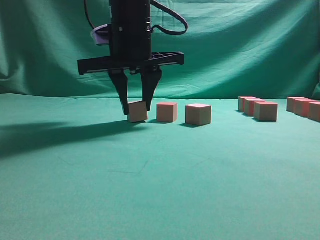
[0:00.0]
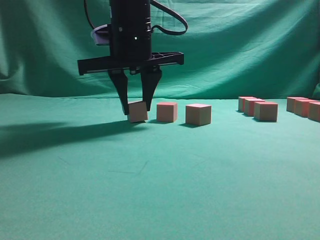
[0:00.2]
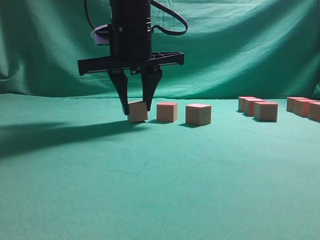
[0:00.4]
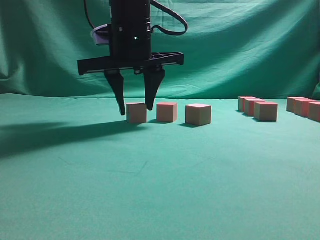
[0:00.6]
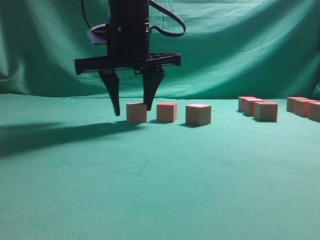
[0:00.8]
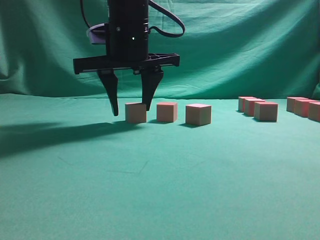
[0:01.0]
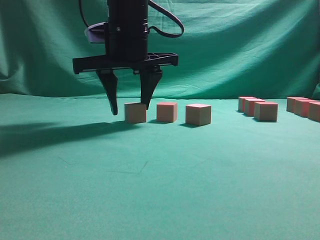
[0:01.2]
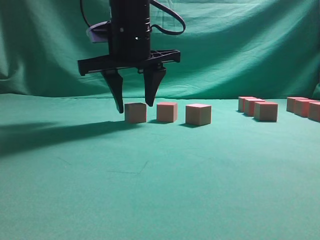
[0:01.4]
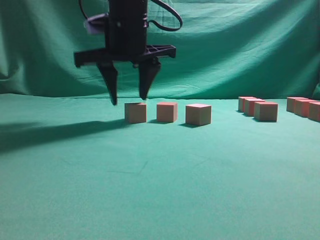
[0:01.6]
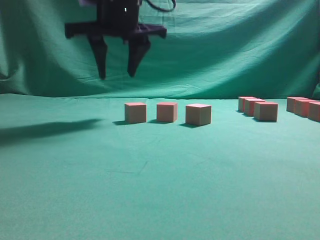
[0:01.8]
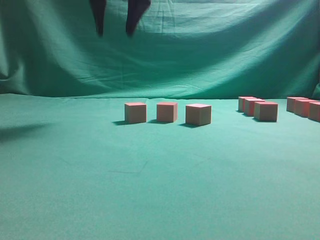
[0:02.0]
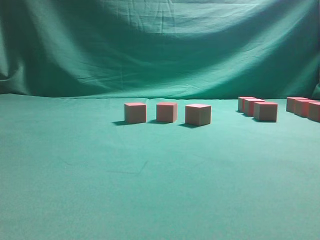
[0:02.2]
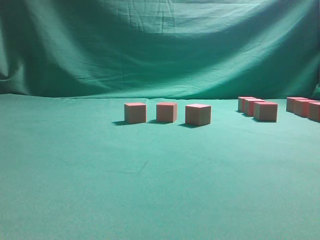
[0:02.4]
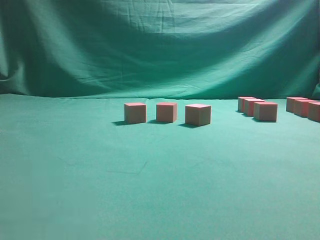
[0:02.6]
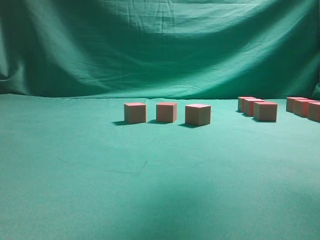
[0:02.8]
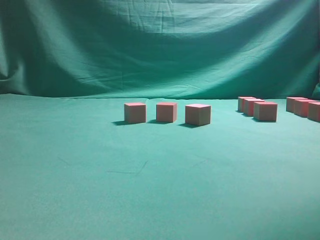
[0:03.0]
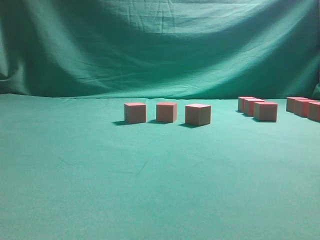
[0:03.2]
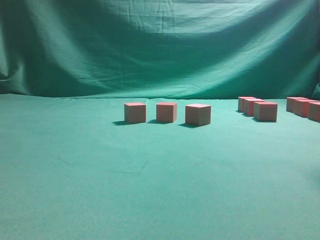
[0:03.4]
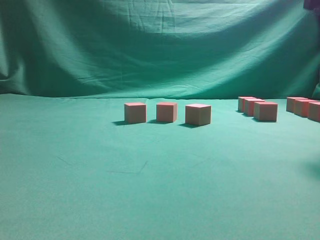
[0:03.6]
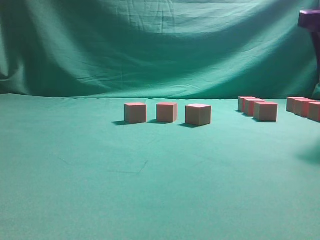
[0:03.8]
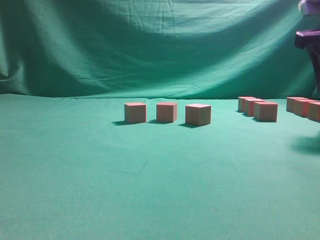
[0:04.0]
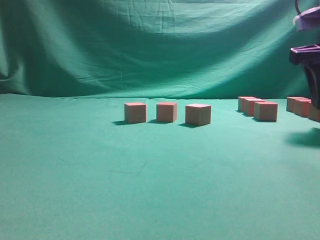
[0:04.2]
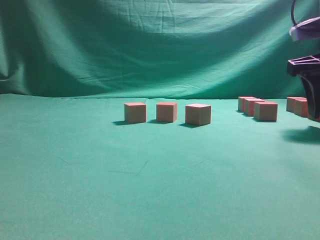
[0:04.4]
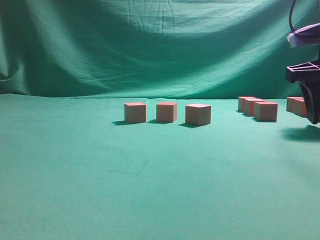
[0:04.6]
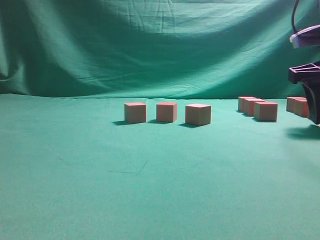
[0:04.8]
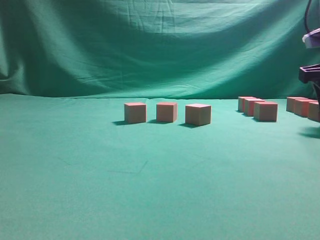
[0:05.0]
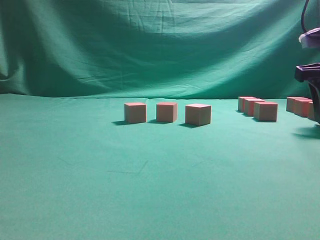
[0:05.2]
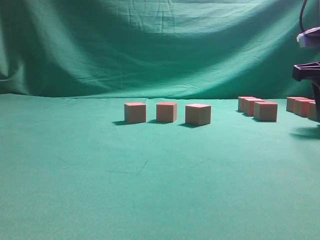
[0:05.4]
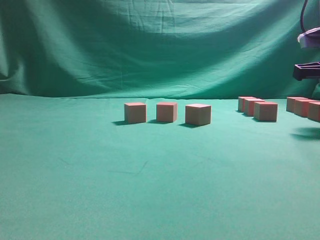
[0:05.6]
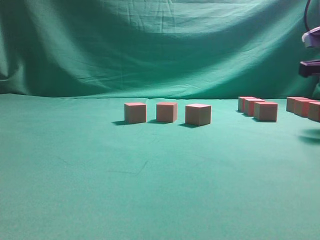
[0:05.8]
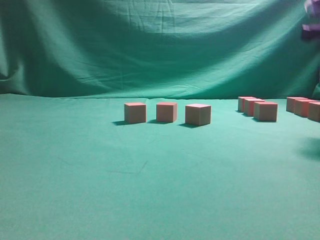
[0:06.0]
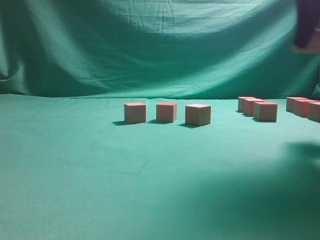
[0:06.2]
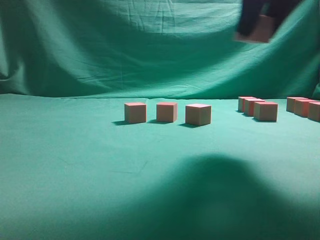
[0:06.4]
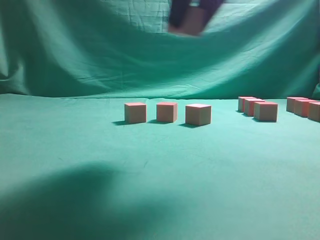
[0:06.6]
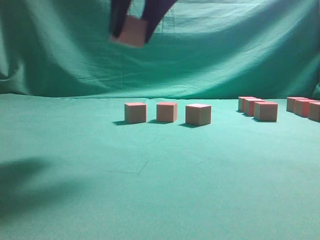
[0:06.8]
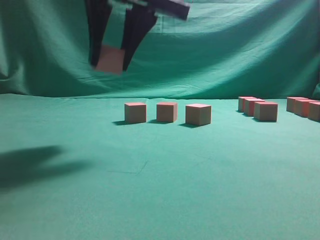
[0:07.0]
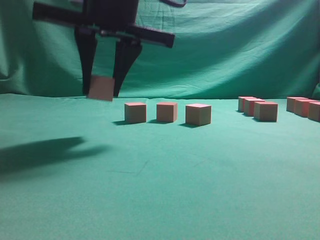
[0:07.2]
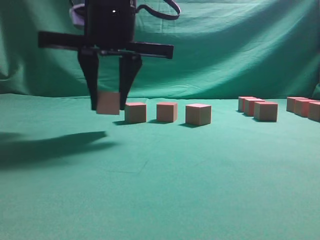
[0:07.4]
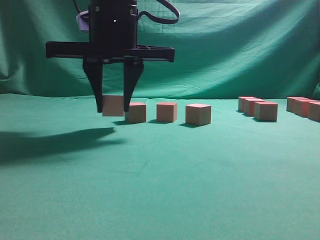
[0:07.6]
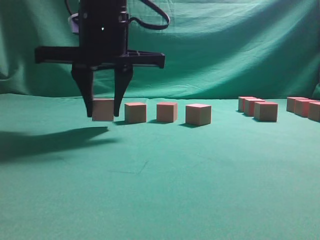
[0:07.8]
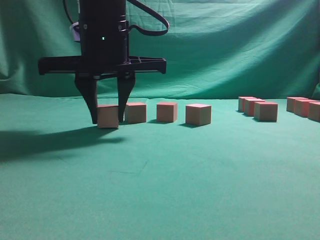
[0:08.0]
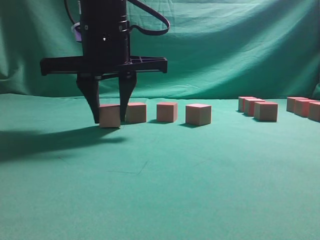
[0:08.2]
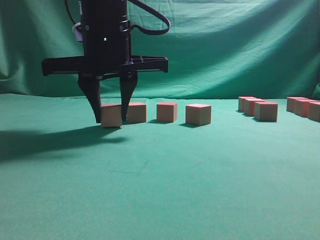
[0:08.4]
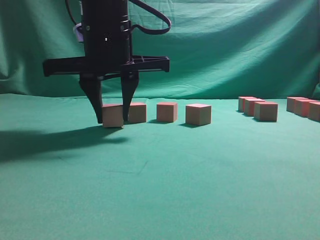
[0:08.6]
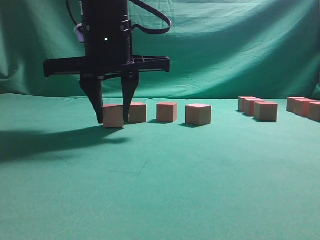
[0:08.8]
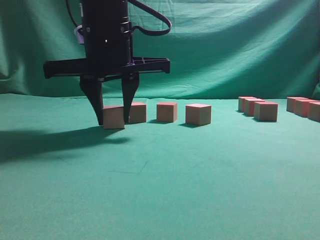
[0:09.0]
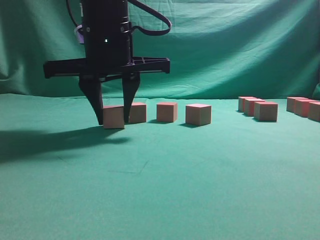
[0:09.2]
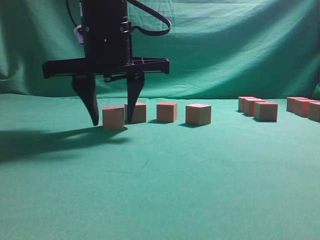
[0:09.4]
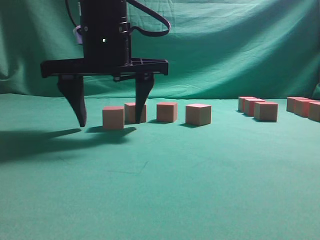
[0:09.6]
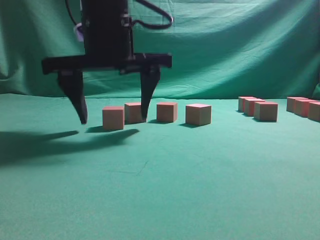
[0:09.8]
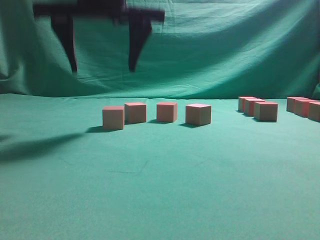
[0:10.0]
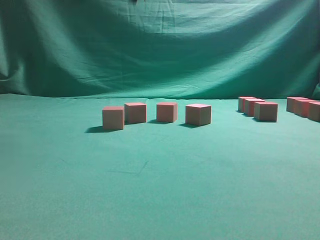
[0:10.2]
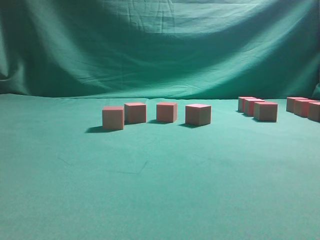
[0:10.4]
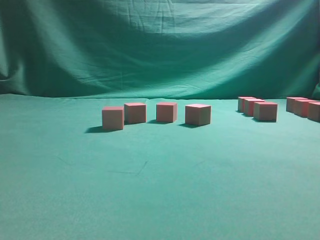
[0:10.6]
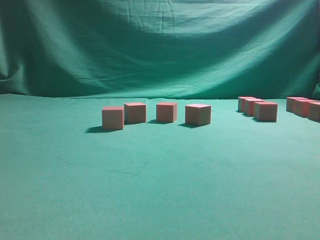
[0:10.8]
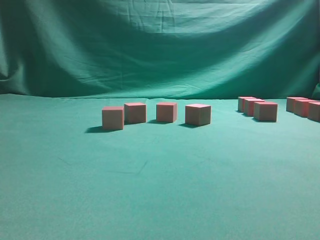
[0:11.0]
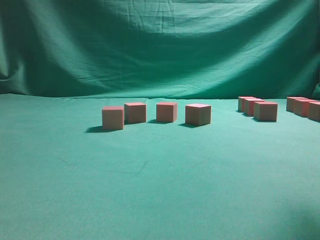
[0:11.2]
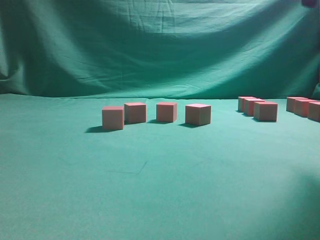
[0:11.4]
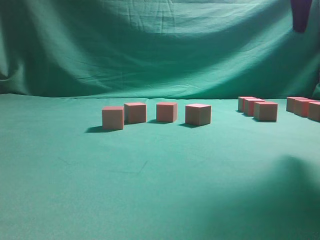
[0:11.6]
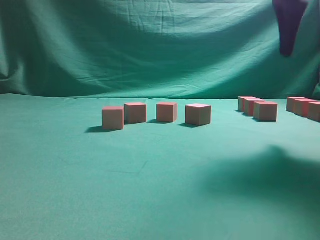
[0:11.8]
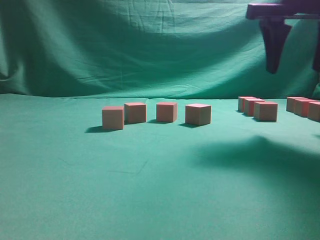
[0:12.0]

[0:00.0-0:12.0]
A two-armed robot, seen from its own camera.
Task of the whole recording: pick up the multiple cubes in two columns one by one and place them in another position on the table.
Step, 0:02.0 to 0:05.6: Pick up the block on the table.
Step, 0:06.0 to 0:09.8: Place the block at the correct position to assemble the letter S.
0:00.0 to 0:01.6: The grippers move only a little.
0:01.6 to 0:03.0: The right gripper travels to the right and upward by some 30 cm.
0:03.0 to 0:04.4: The right gripper moves downward, about 15 cm.
0:04.4 to 0:06.0: The right gripper heads upward, covering roughly 5 cm, and closes up.
0:06.0 to 0:07.6: The right gripper is displaced to the left by some 30 cm.
0:07.6 to 0:09.0: The grippers stay close to where they were, moving slightly.
0:09.0 to 0:10.4: The right gripper is displaced upward by roughly 25 cm, and opens its fingers.
0:10.4 to 0:12.0: The right gripper travels to the right and downward by about 25 cm.

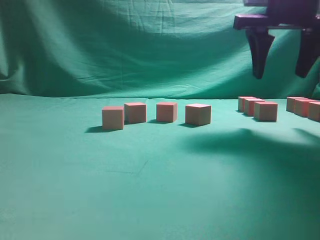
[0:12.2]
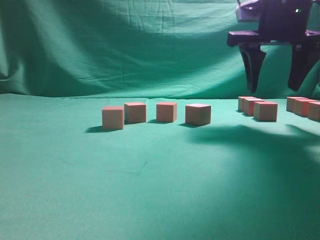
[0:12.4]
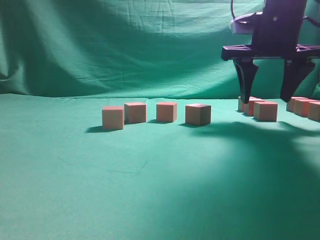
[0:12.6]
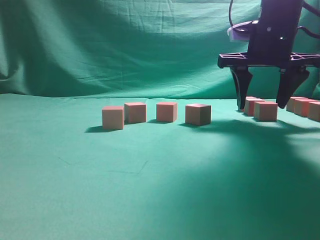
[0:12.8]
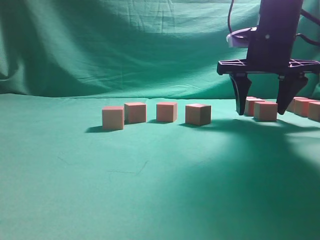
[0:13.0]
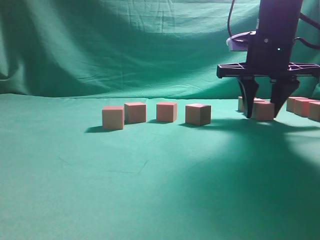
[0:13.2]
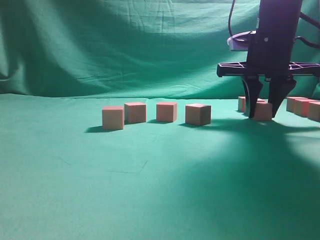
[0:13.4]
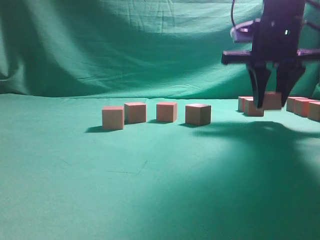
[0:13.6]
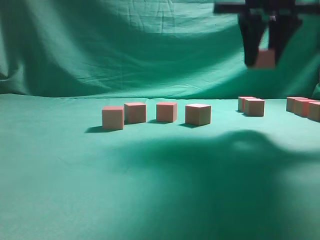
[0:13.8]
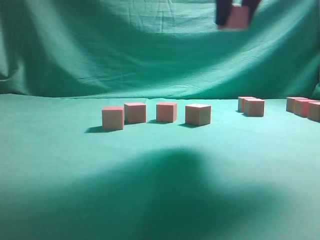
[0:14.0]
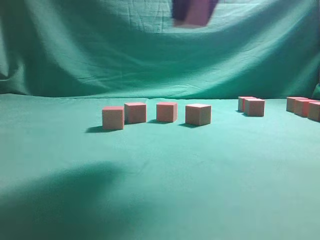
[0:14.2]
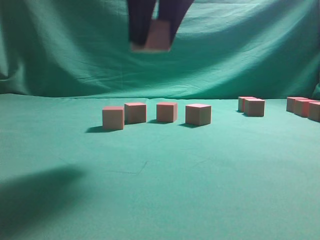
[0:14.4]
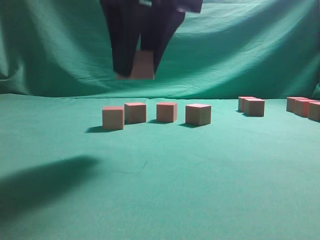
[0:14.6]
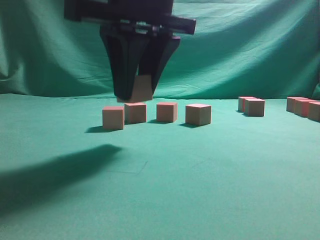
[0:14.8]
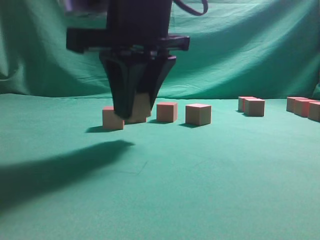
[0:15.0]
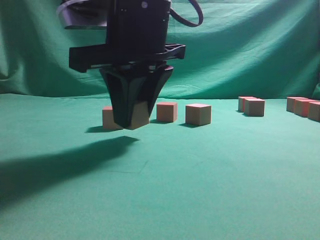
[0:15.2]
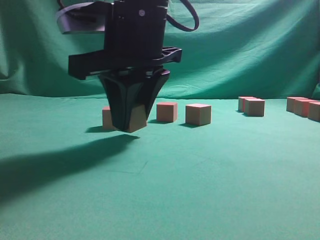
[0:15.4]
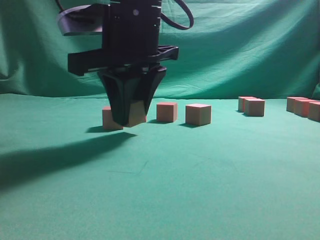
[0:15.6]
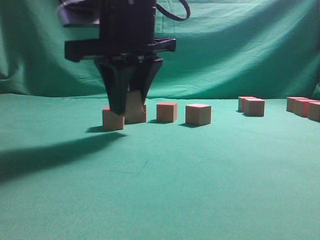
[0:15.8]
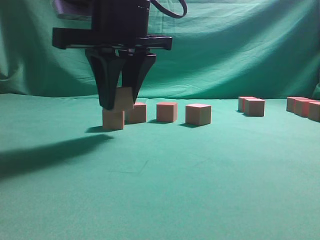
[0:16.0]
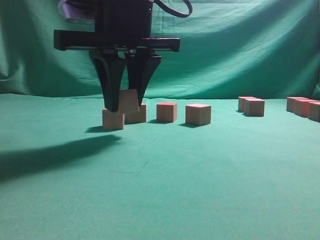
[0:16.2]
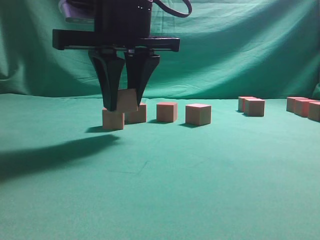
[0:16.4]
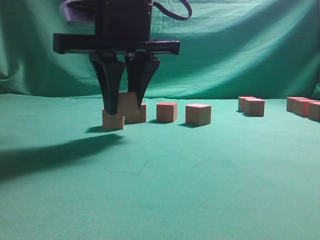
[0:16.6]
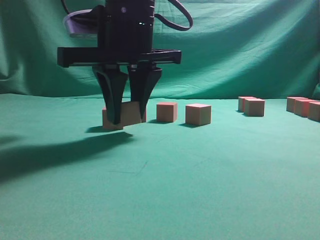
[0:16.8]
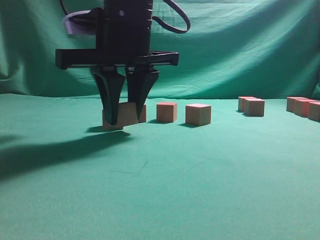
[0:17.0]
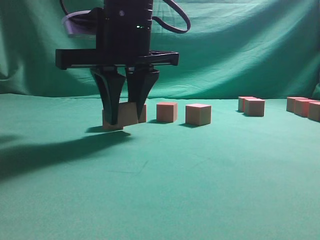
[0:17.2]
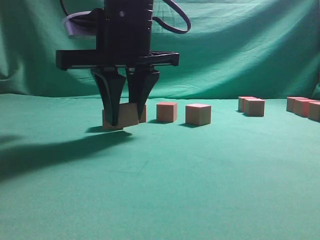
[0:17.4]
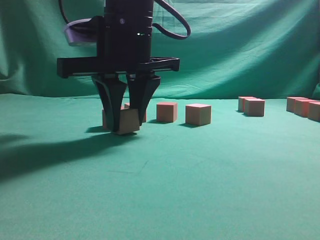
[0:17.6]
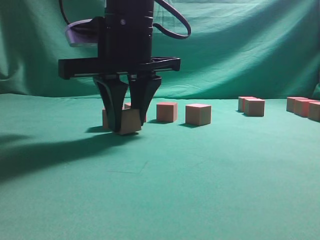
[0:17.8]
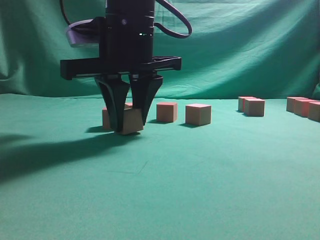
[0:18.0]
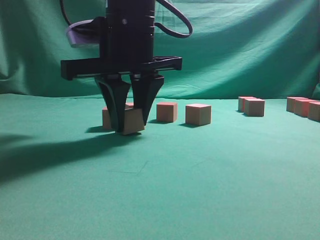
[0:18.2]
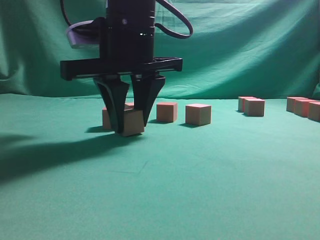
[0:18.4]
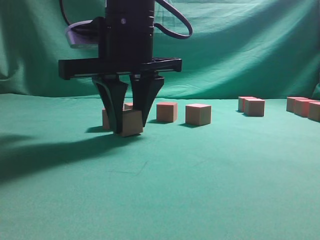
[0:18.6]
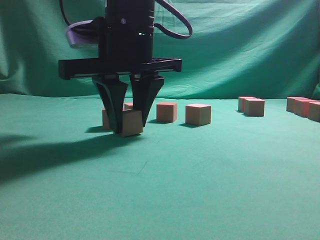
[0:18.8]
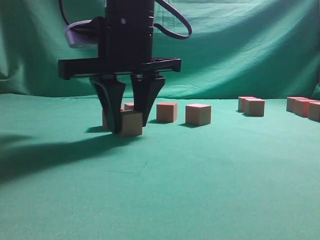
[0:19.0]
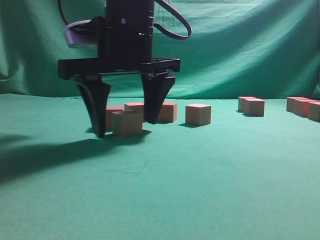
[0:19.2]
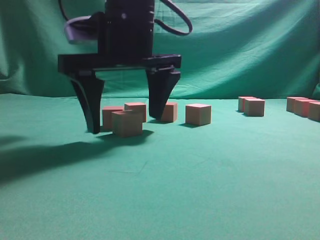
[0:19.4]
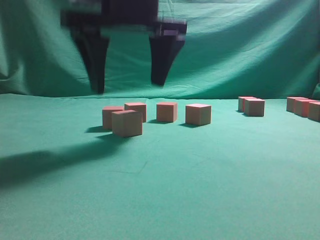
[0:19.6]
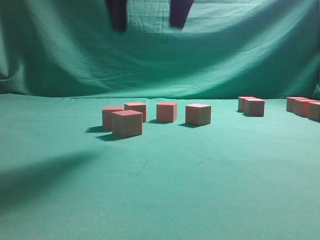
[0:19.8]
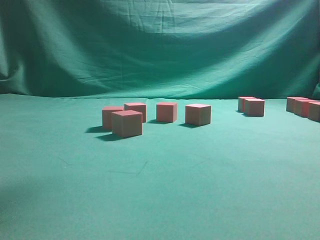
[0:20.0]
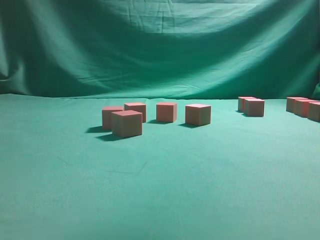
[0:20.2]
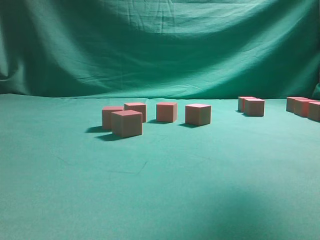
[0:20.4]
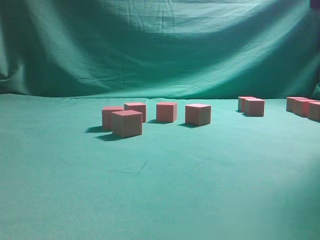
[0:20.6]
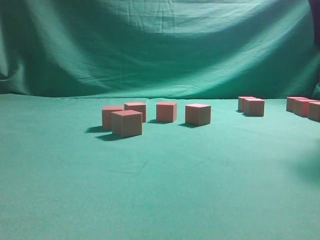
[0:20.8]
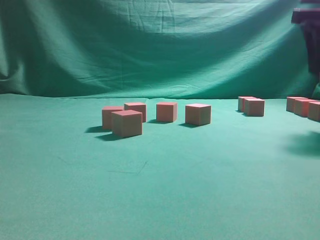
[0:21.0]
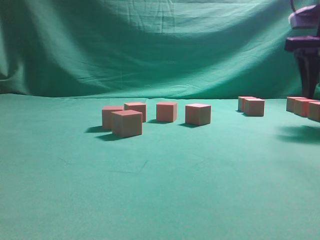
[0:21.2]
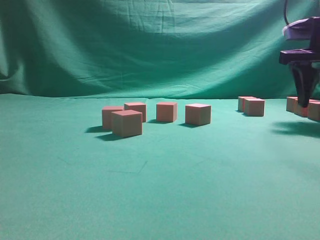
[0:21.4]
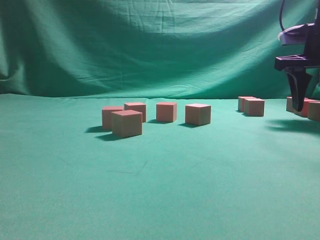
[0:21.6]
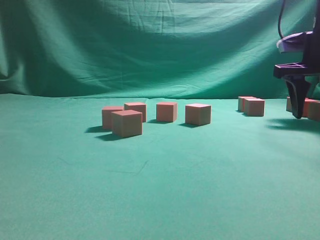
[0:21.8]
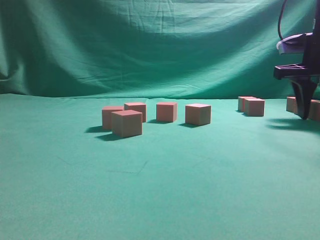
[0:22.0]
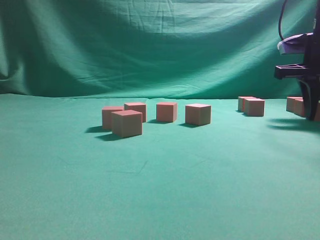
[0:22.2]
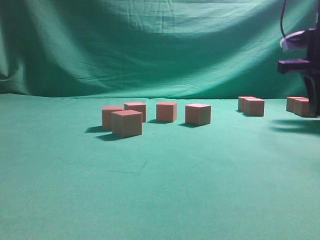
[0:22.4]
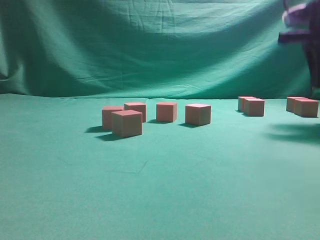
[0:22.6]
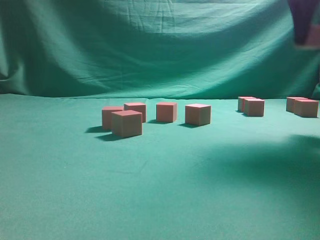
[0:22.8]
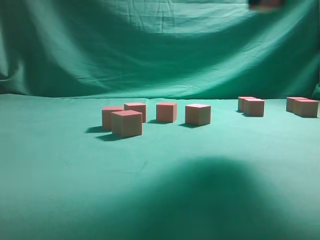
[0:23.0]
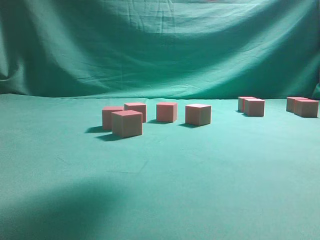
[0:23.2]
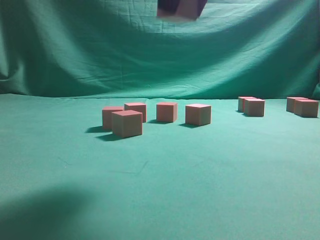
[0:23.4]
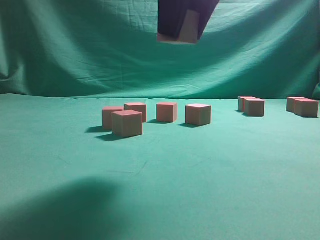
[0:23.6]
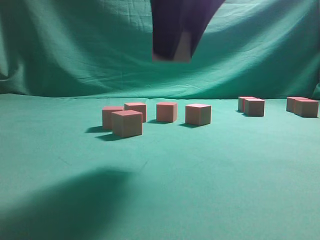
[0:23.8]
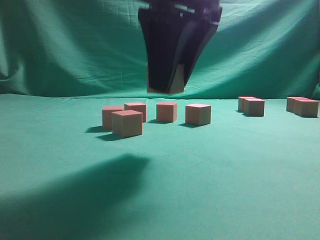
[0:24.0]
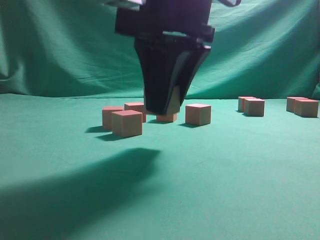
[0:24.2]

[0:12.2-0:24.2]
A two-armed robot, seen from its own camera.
Task of the whole recording: pick up the multiple cubes in two columns one by one and place them in another position on the table.
Step, 0:13.6 to 0:19.4: Place the block at the correct position to assemble the letter S.
Step, 0:19.6 to 0:22.4: Pick up the block on the table.
0:12.2 to 0:13.8: The right gripper moves about 5 cm, and closes its fingers.
0:13.8 to 0:15.2: The right gripper moves to the left and downward, roughly 20 cm.
0:15.2 to 0:18.2: The grippers make only small movements.
0:18.2 to 0:19.8: The right gripper is displaced upward by some 15 cm, and opens up.
0:19.8 to 0:21.2: The right gripper heads to the right, covering about 25 cm.
0:21.2 to 0:22.6: The right gripper closes.
0:22.6 to 0:24.2: The right gripper shifts some 25 cm to the left and backward.
